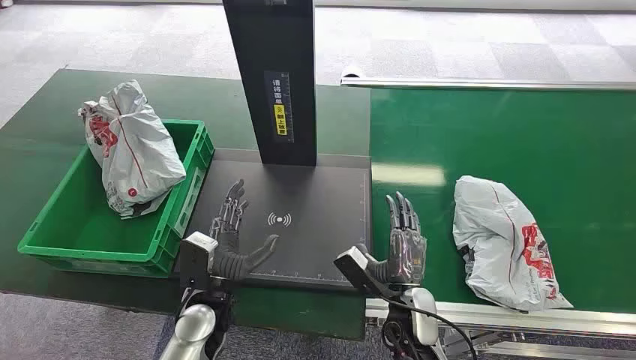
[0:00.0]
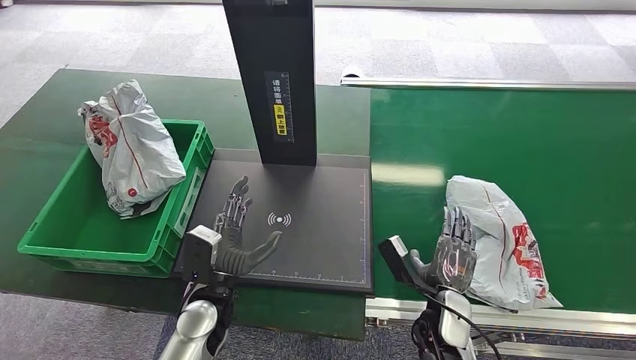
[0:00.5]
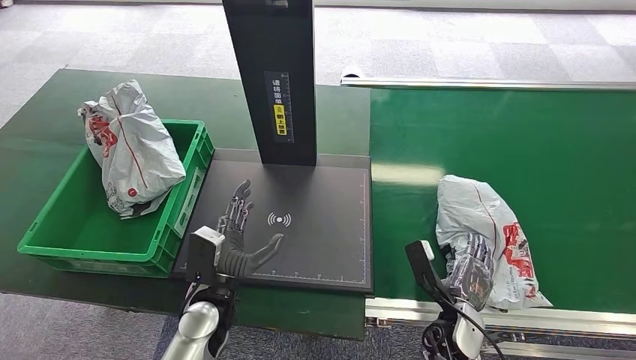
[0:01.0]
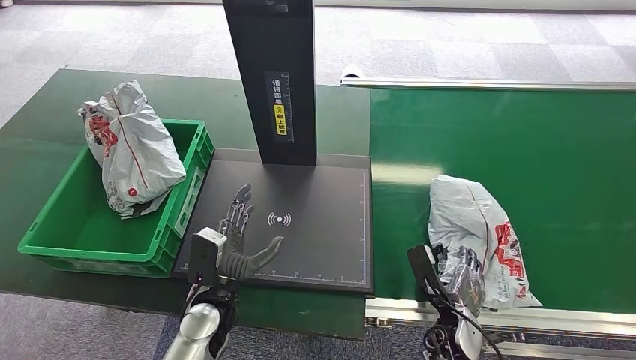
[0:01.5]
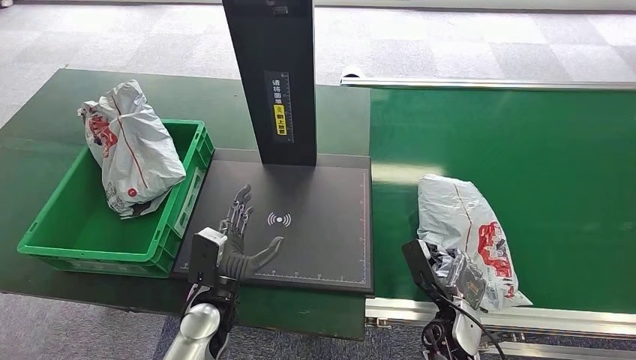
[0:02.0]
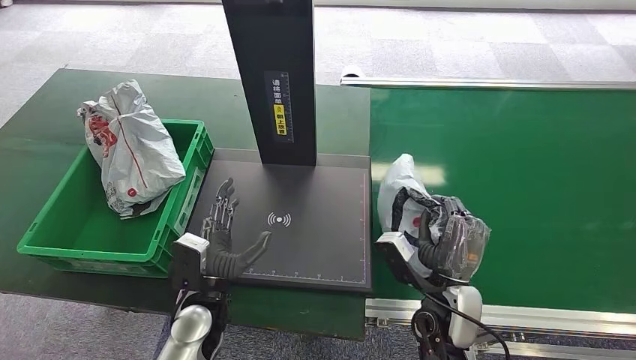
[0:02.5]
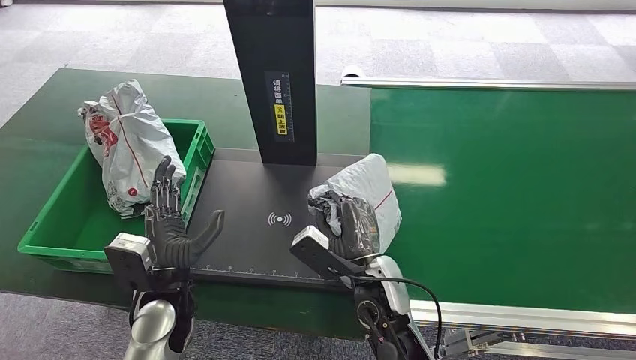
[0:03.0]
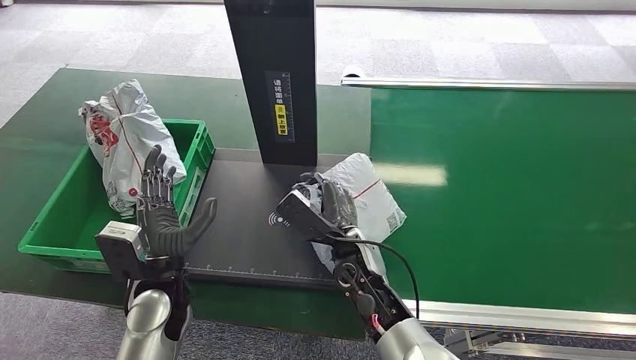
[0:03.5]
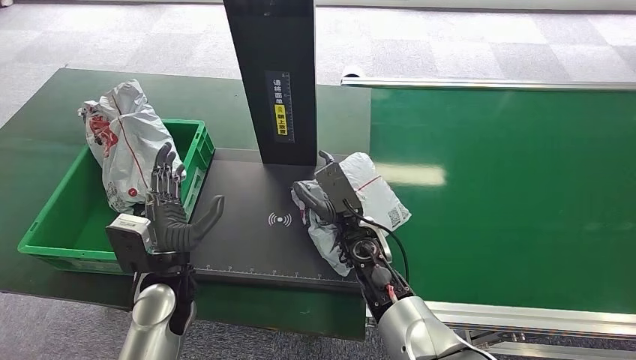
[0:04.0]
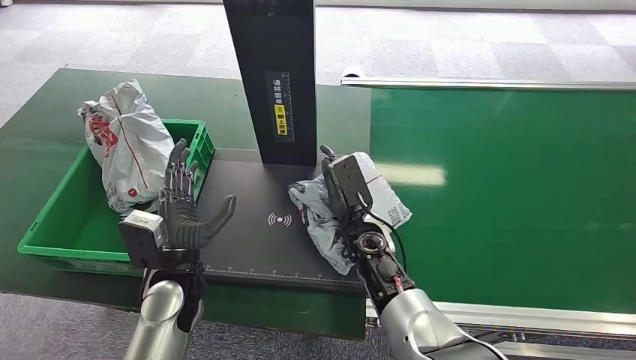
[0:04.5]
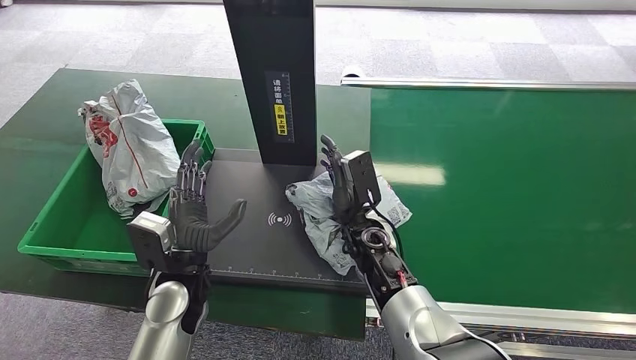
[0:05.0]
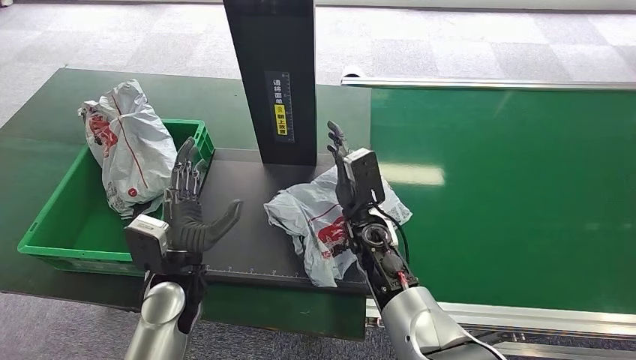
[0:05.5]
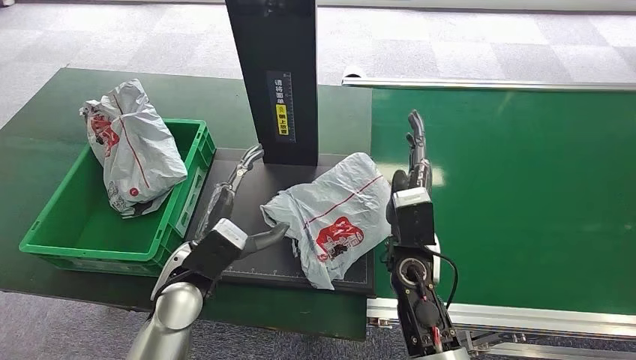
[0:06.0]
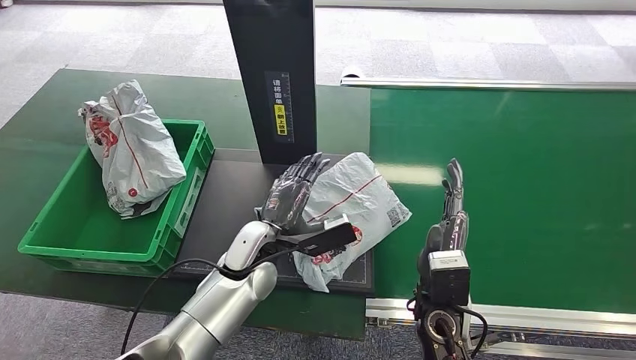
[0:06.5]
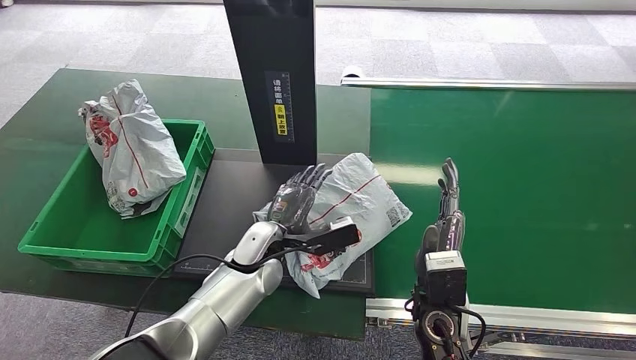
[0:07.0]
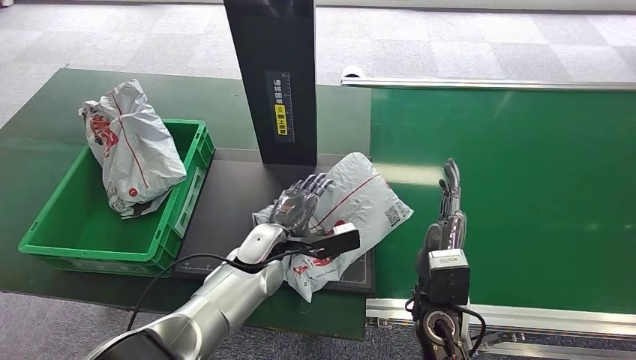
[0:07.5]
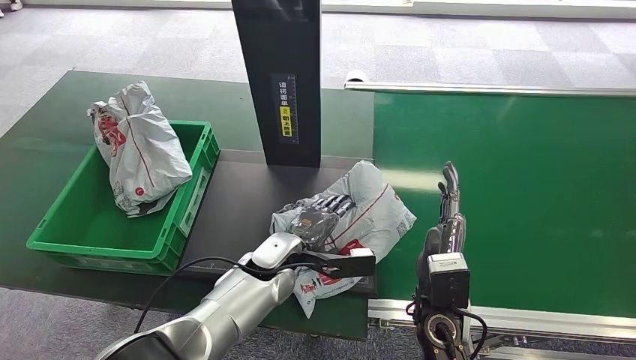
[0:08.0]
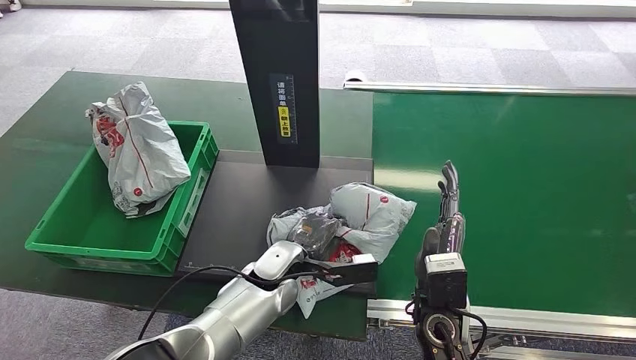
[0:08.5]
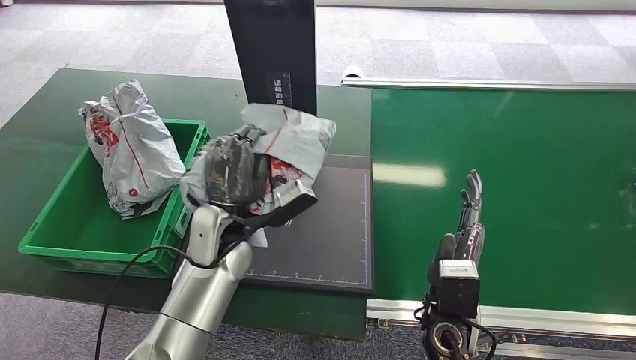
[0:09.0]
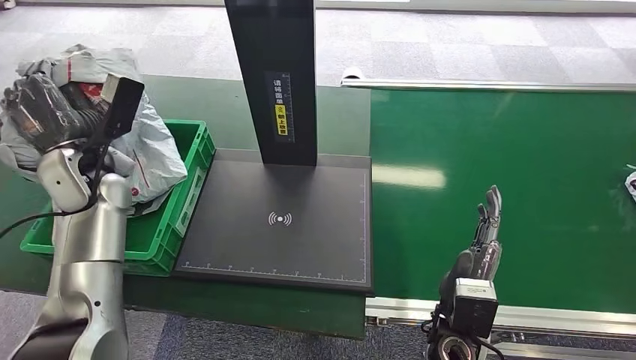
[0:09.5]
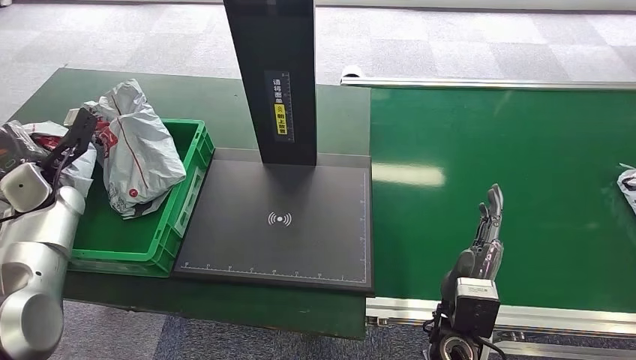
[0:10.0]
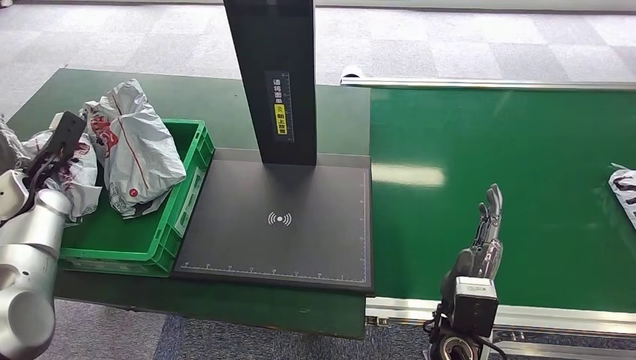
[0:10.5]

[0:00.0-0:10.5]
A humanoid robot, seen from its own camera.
Step, 0:00.0 to 0:02.0: Pick up the package from the conveyor belt.
Step, 0:02.5 to 0:05.5: Place the package onto the inbound machine.
Step, 0:06.0 to 0:09.0: Pick up the package from the inbound machine.
Step, 0:09.5 to 0:10.5: Place the package into the parcel locker.
0:02.0 to 0:04.0: The right hand travels to the left, upward and forward by roughly 20 cm. Meanwhile the left hand travels upward and to the left by some 10 cm.
0:04.0 to 0:06.5: The right hand goes roughly 15 cm backward and to the right; the left hand shifts some 10 cm to the right and forward.
